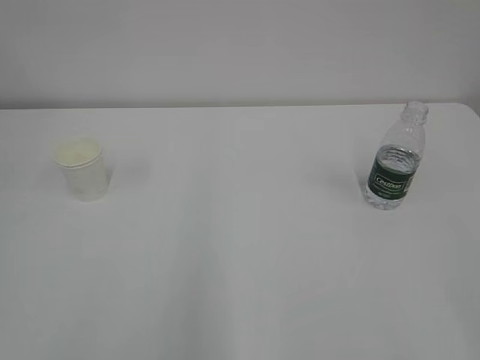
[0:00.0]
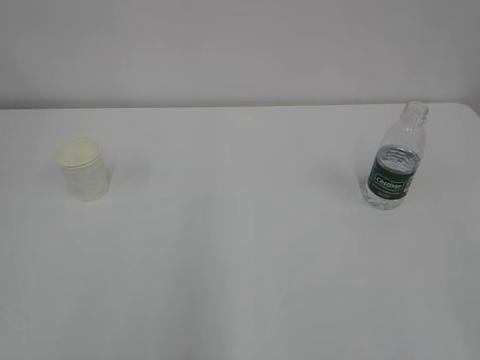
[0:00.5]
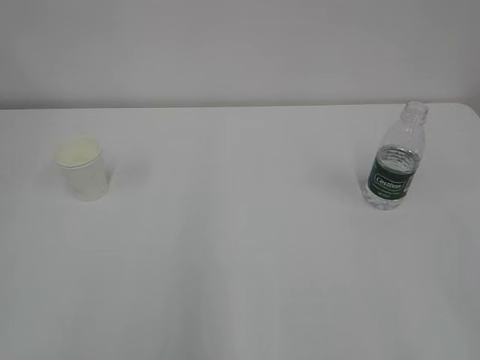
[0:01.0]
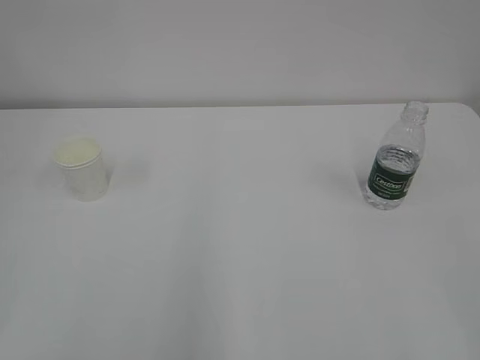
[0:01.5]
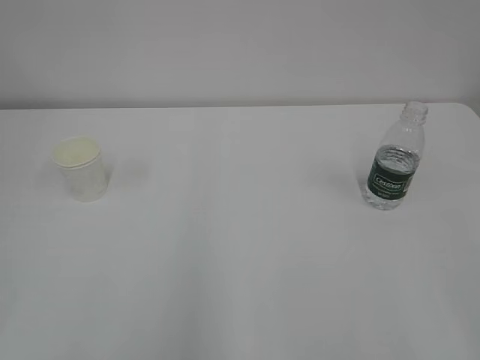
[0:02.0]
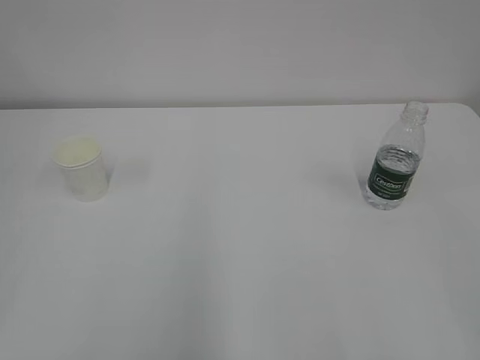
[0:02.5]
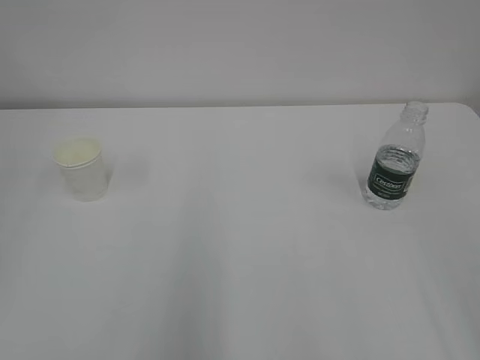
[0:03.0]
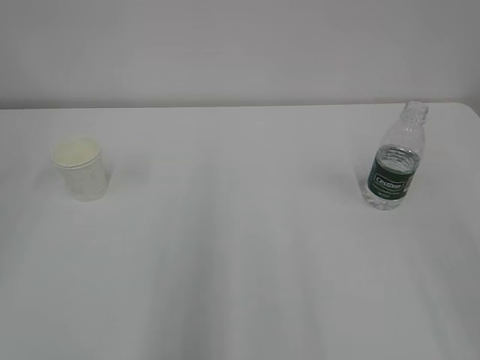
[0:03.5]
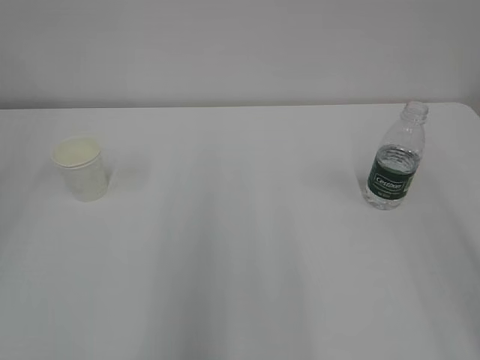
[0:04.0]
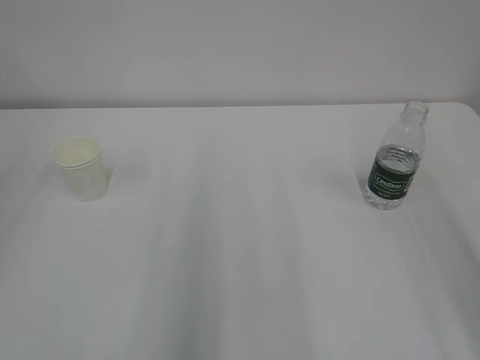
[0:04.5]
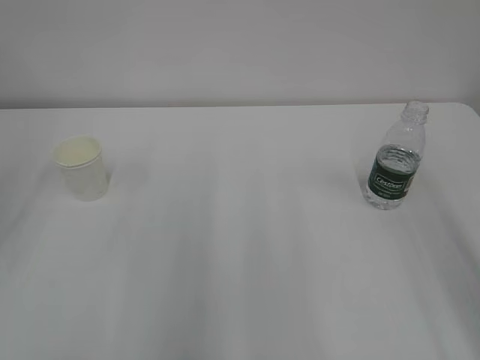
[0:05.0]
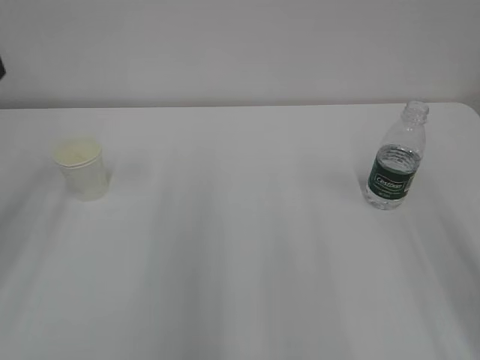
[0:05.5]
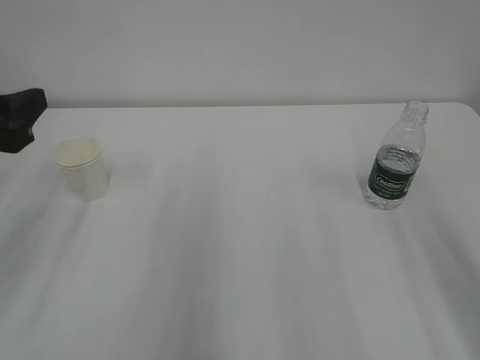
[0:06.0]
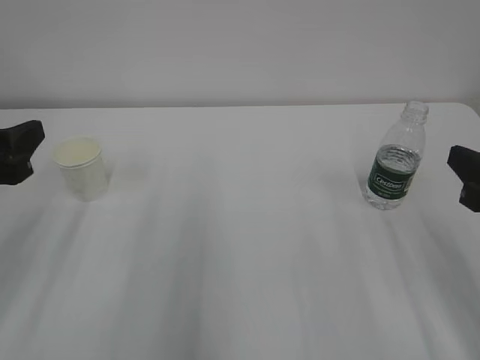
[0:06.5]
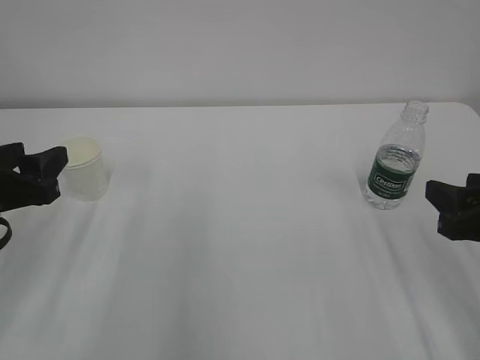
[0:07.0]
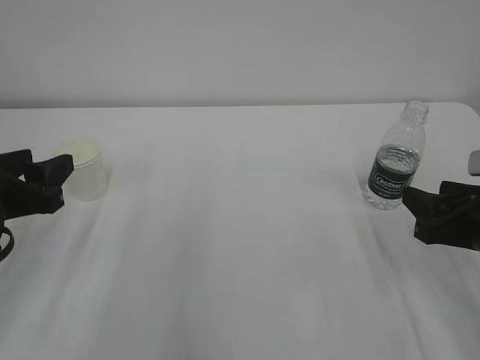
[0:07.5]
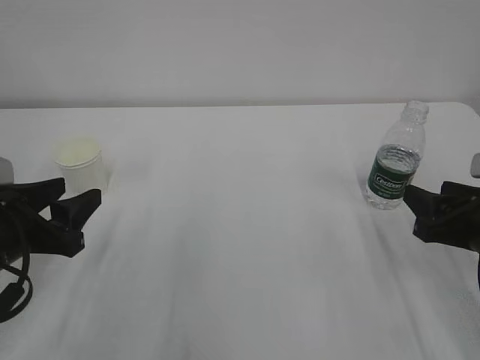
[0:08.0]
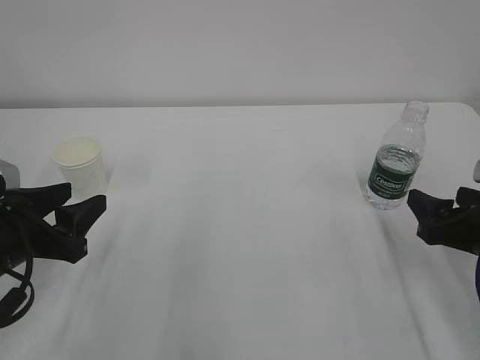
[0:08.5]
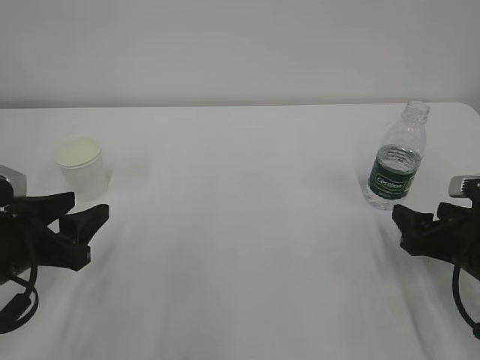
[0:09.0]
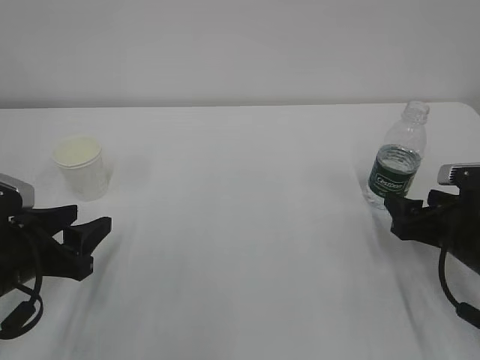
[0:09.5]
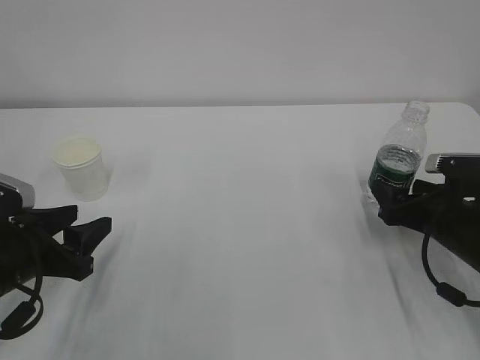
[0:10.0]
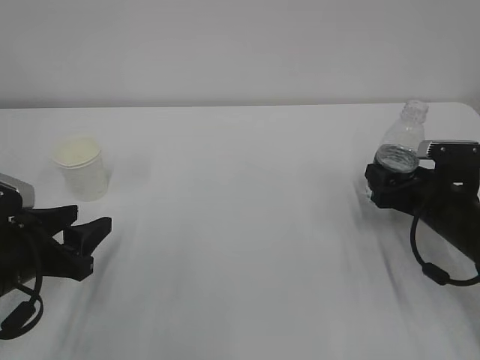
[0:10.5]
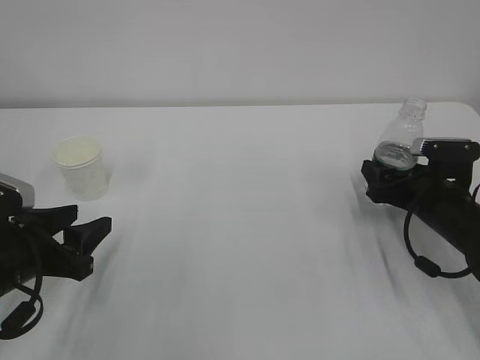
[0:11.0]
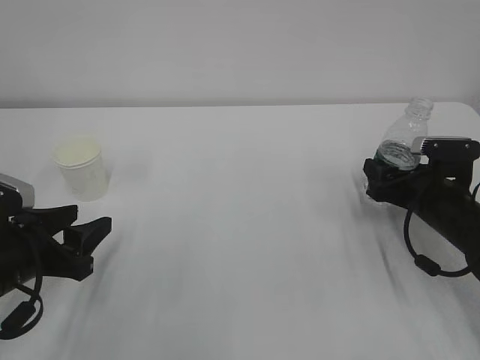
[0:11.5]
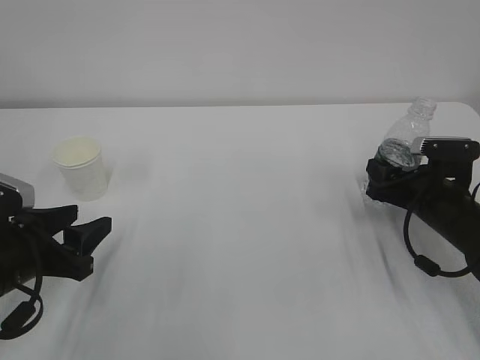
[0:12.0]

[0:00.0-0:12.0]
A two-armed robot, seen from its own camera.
0:04.0 to 0:06.0: The left gripper travels downward, forward and to the right by roughly 15 cm.
0:06.0 to 0:08.0: Both grippers travel together downward, roughly 10 cm.
0:08.0 to 0:10.0: The right gripper shifts about 10 cm forward and downward, and opens up.
0:10.0 to 0:12.0: The right gripper closes.

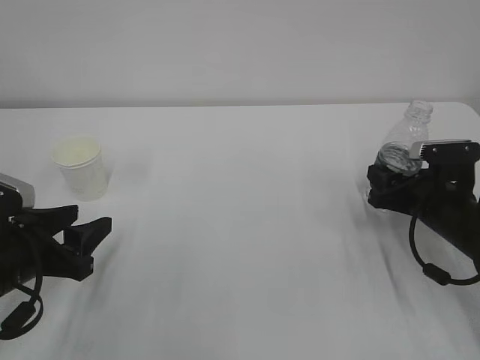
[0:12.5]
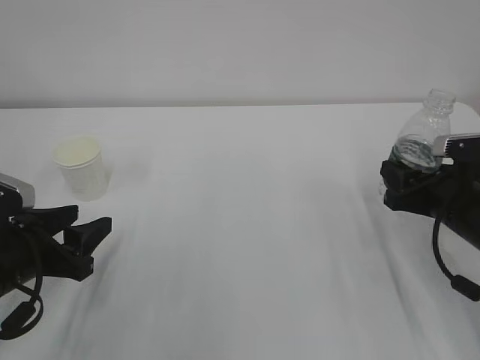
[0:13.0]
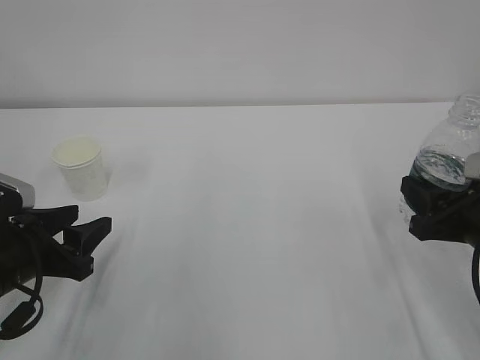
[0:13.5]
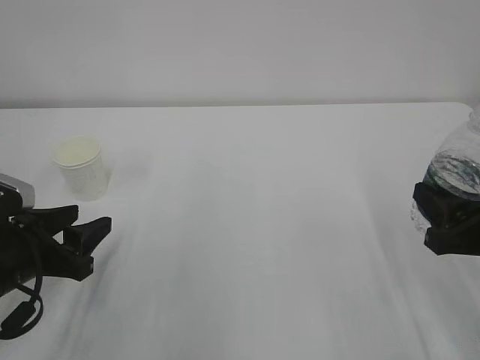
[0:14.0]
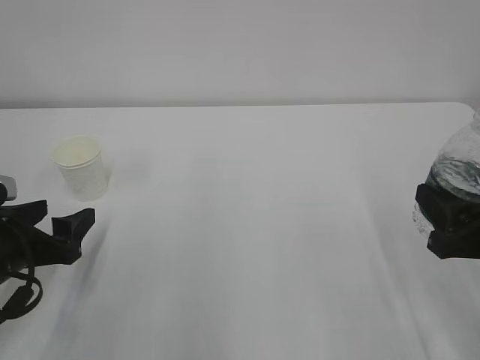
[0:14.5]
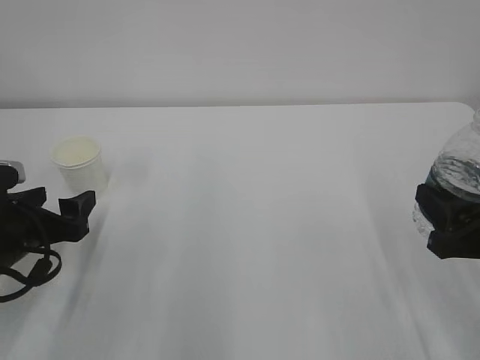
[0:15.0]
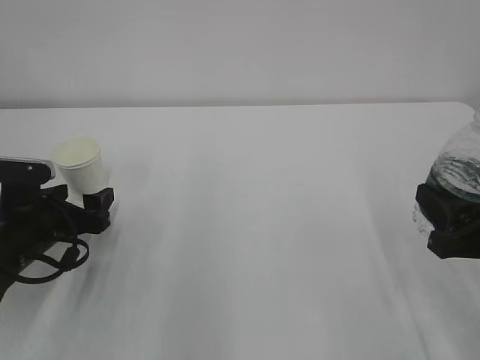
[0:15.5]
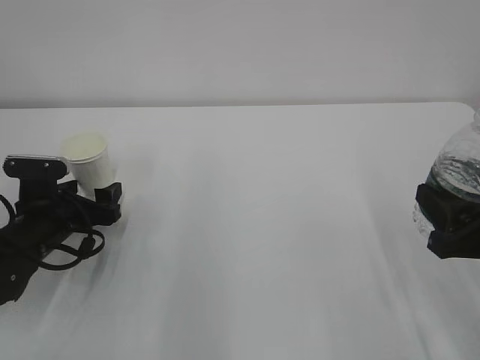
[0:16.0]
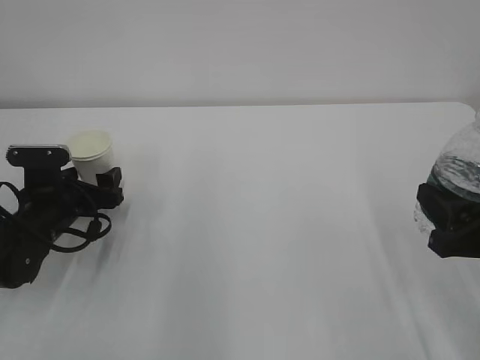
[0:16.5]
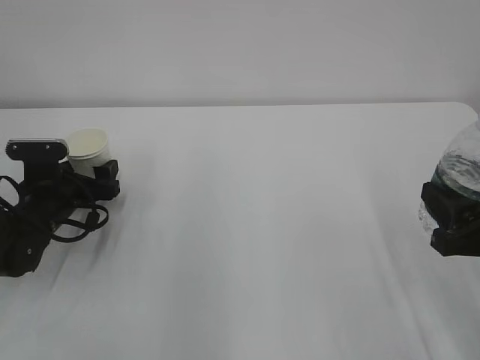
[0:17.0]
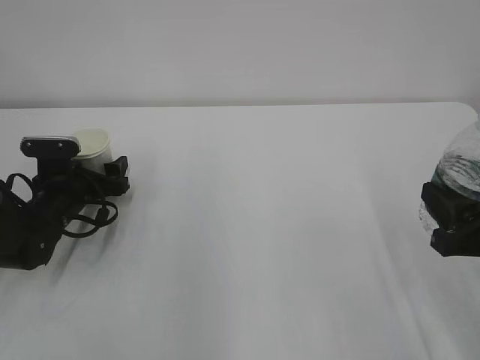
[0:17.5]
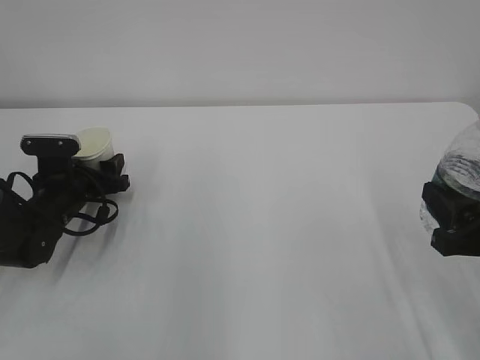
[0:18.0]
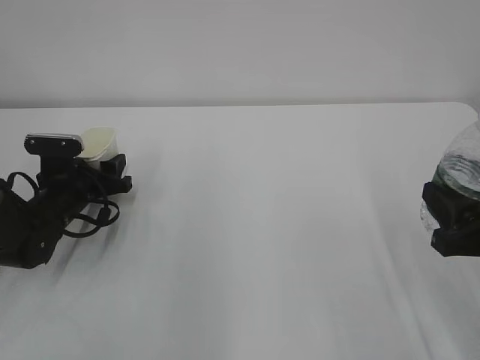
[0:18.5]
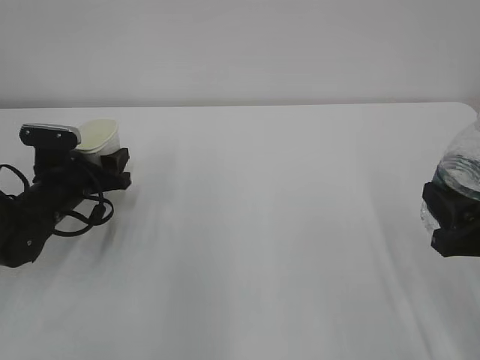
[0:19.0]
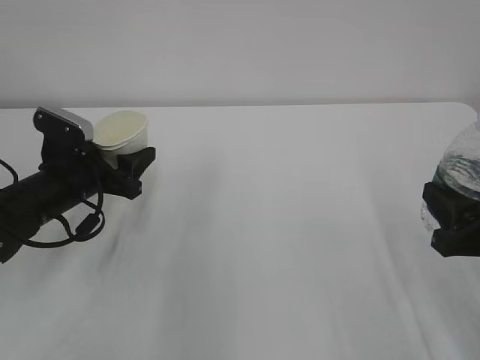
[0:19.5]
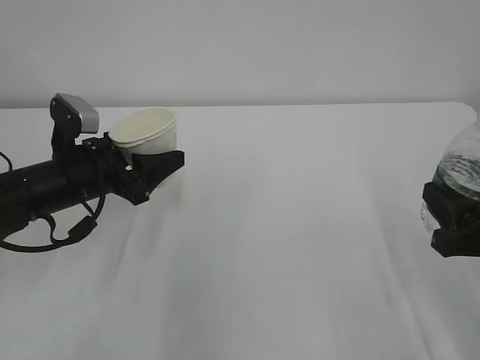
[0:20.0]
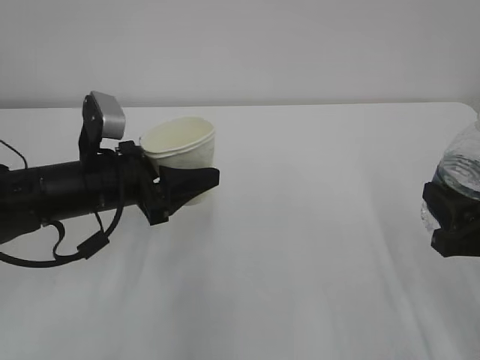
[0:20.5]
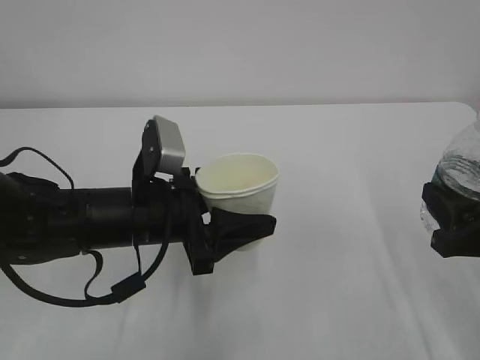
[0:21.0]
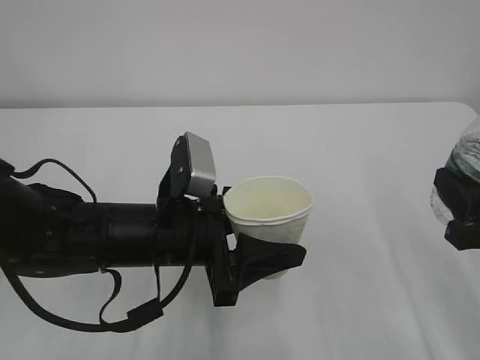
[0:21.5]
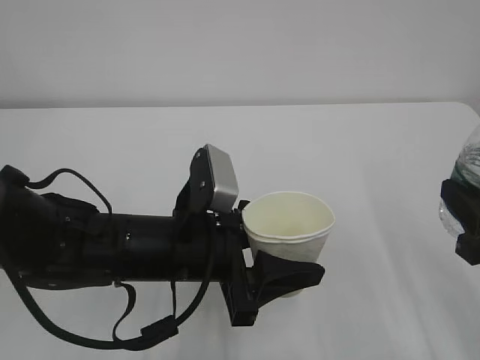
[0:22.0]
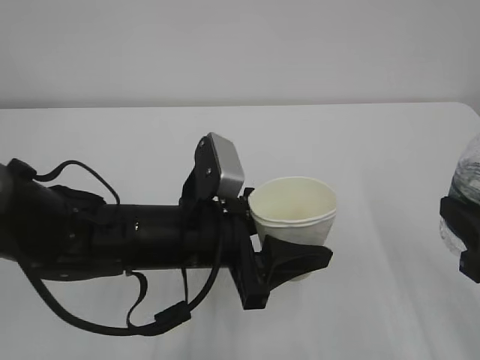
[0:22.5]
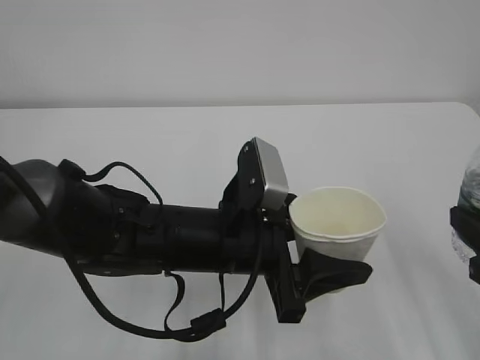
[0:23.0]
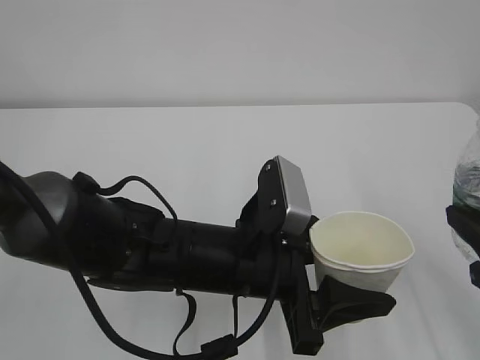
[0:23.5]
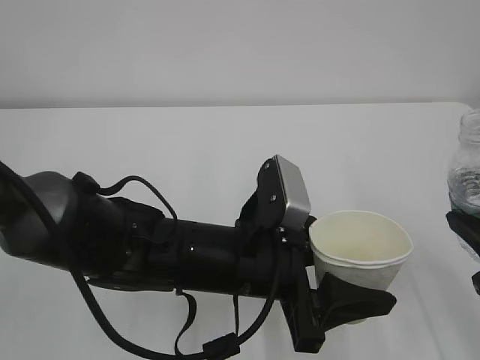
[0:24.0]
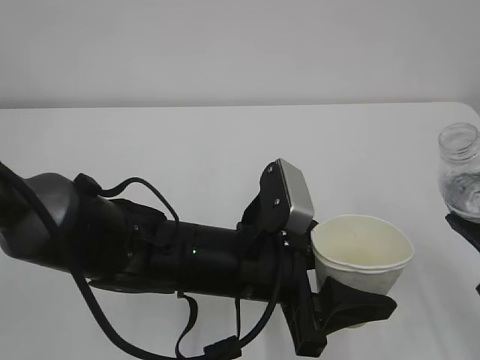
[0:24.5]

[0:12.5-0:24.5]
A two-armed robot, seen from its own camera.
0:12.5 to 0:14.5: The right gripper shifts about 15 cm backward and upward. The left gripper opens.
0:14.5 to 0:16.5: The left gripper is displaced forward by about 10 cm.
0:16.5 to 0:18.5: The left gripper closes.
0:18.5 to 0:20.5: The left gripper travels upward, backward and to the right by roughly 15 cm.
0:20.5 to 0:22.5: The left gripper moves to the right and backward, roughly 15 cm; the right gripper shifts by roughly 5 cm.
0:22.5 to 0:24.5: The left gripper is displaced to the right by about 5 cm.

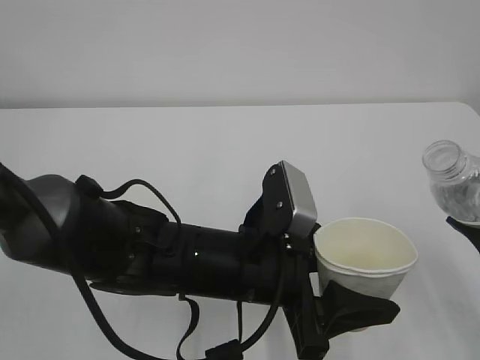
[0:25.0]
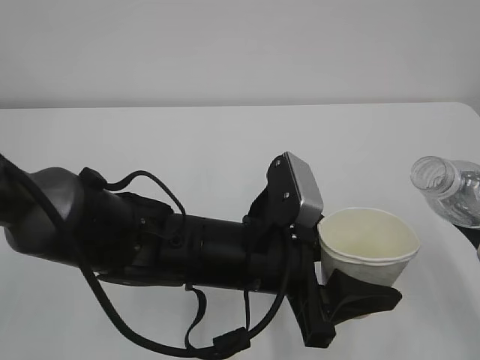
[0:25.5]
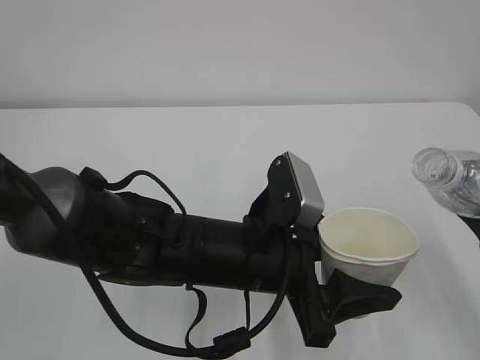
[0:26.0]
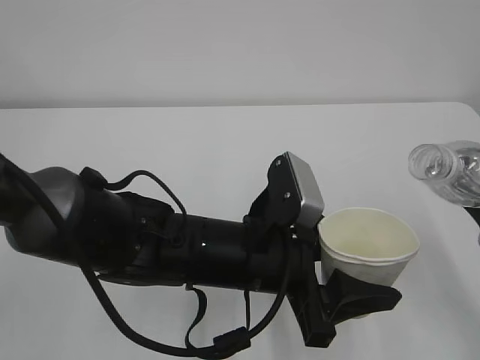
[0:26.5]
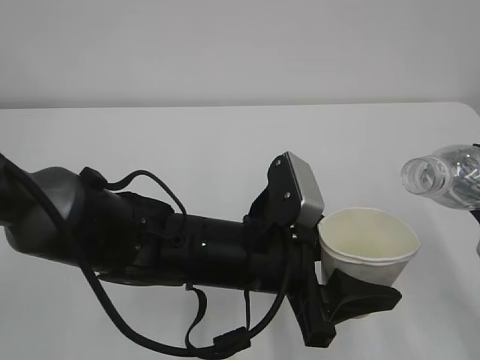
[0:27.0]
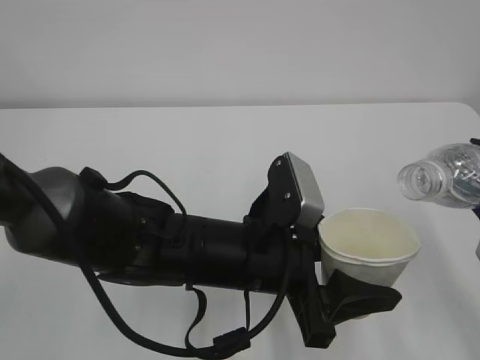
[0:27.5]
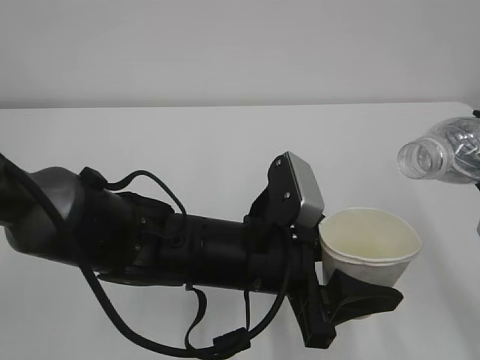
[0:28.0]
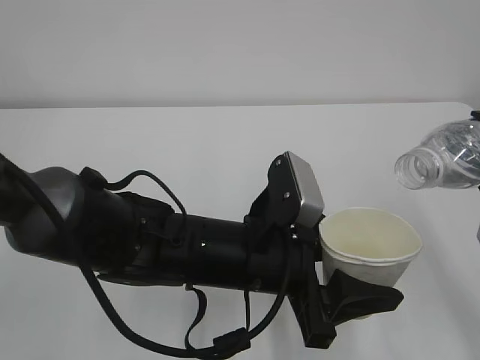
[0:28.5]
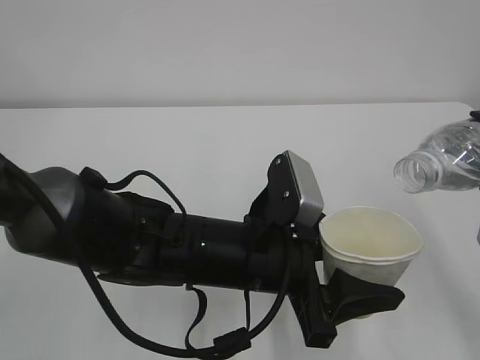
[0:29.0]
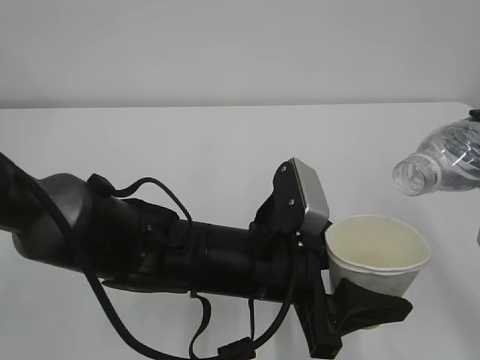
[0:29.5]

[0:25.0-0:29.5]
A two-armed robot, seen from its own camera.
0:27.0 to 0:29.5: The grippers move only a little.
